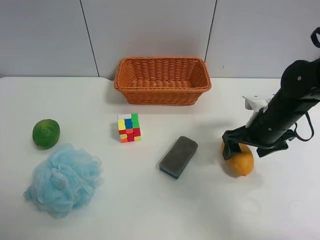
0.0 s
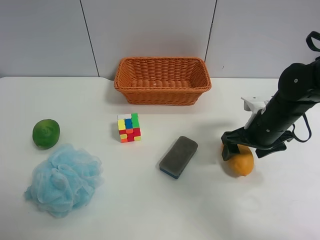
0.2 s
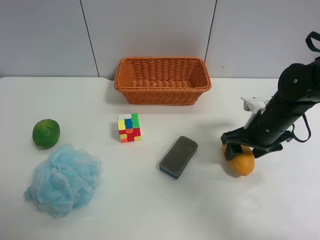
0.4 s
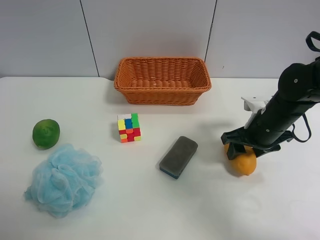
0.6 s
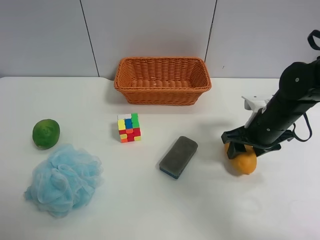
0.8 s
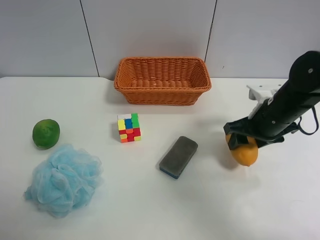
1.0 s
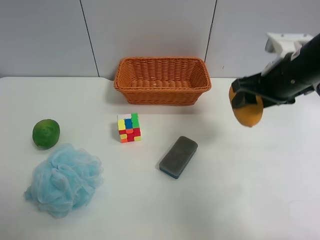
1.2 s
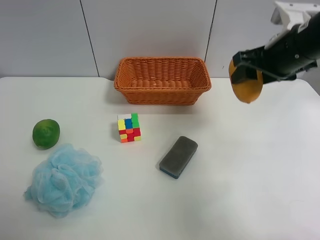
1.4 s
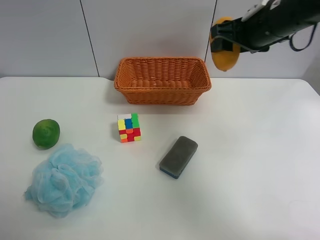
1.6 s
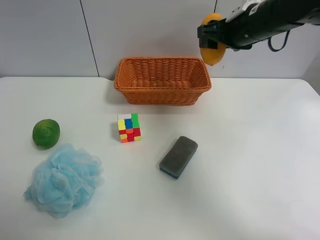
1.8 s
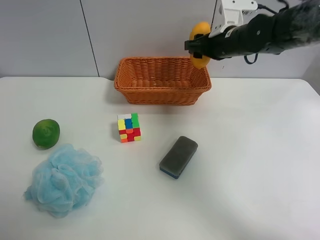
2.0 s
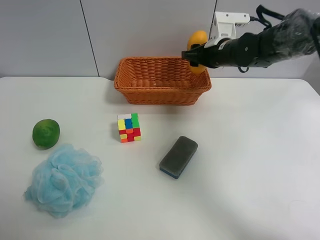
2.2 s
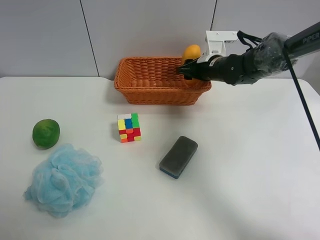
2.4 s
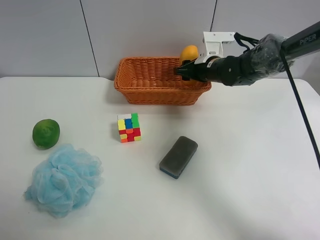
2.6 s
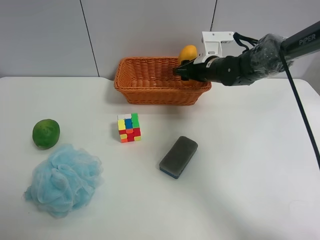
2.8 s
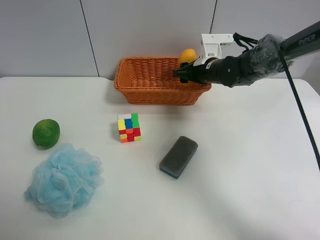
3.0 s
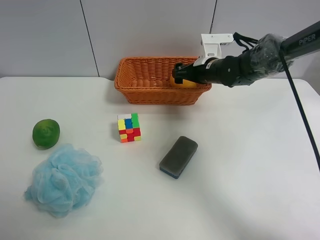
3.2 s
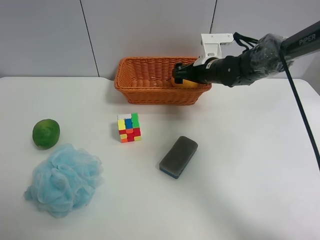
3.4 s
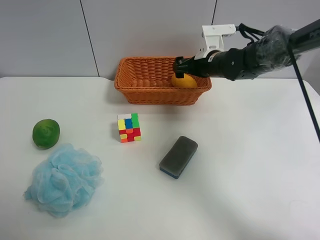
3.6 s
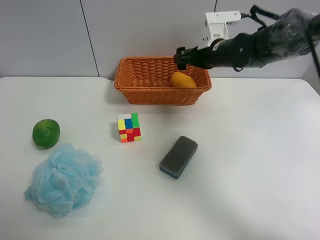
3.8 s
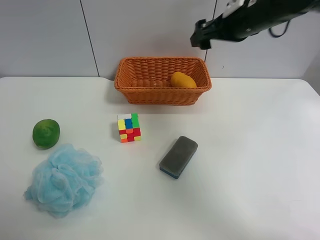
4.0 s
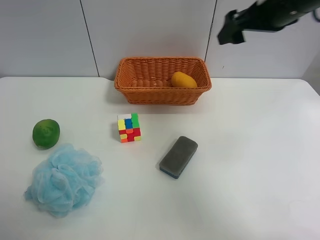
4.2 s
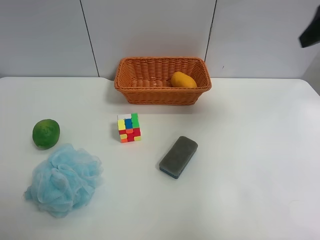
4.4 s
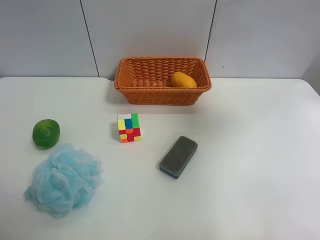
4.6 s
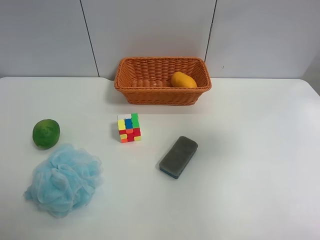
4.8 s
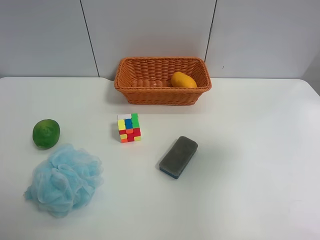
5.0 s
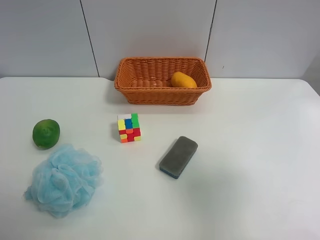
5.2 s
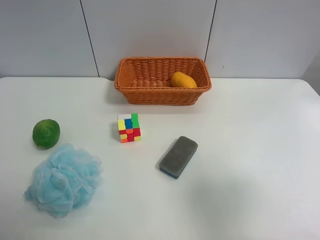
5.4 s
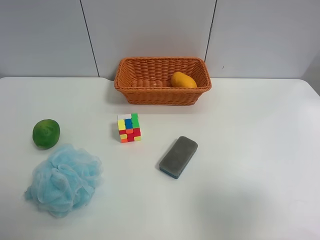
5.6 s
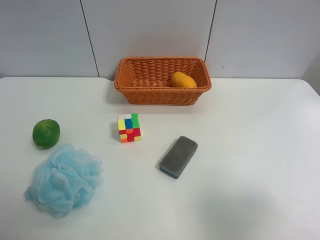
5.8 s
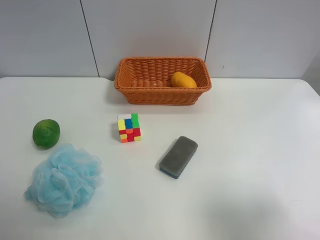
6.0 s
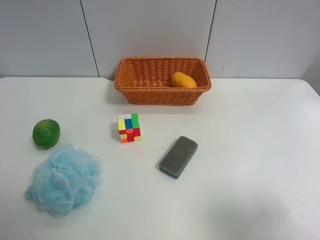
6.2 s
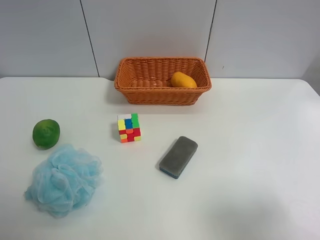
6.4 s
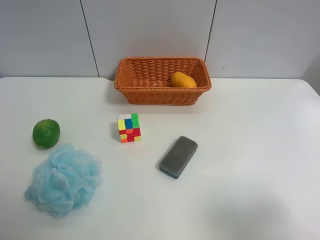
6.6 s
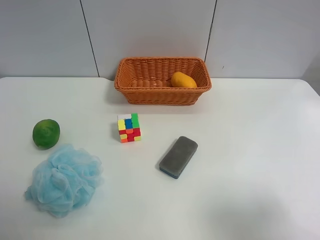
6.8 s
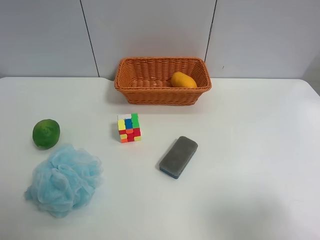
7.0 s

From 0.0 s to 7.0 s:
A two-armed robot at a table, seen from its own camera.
Task of the whole recording: Randomly grab green lemon or mangoes from the table and put them in a basket.
Step, from 1.0 s to 3.8 s: Place the mango into the basket with the right gripper.
From 0.0 s to 1.4 s: The right gripper shifts roughly 15 cm upward, and closes its fingers.
From 1.4 s to 2.8 s: The right gripper is displaced forward, downward and to the left by some 20 cm.
From 2.8 s to 4.2 s: The right gripper shifts about 20 cm upward and backward, and opens its fingers.
From 4.2 s to 5.6 s: The right gripper travels backward by roughly 30 cm.
